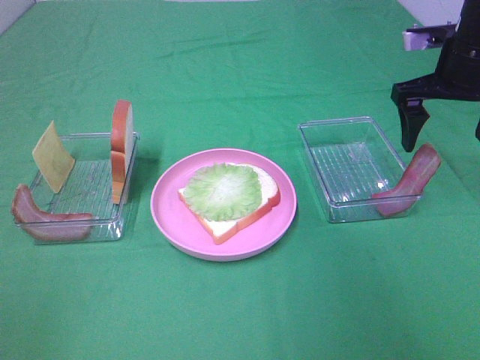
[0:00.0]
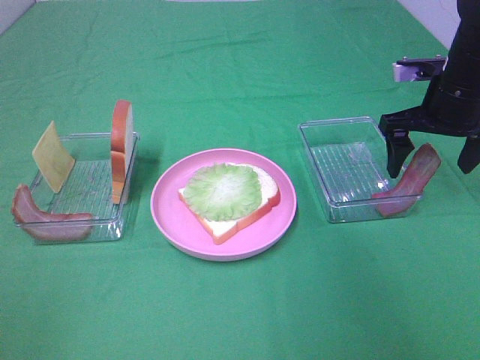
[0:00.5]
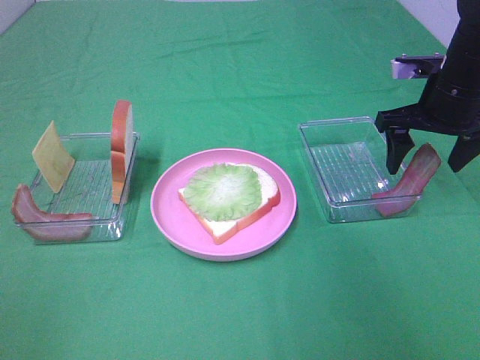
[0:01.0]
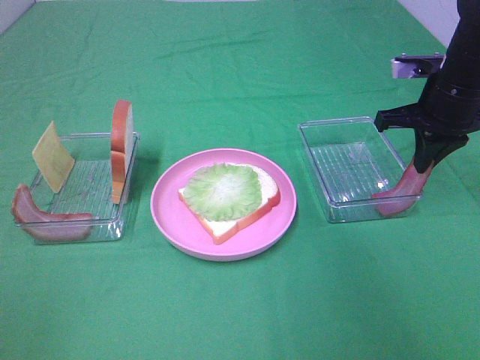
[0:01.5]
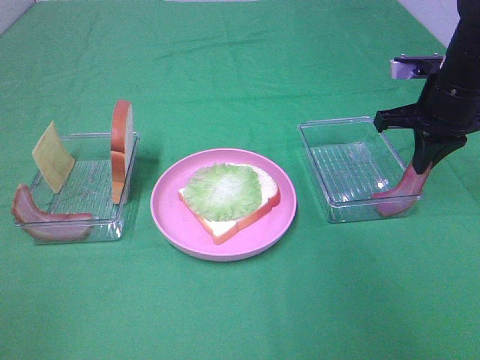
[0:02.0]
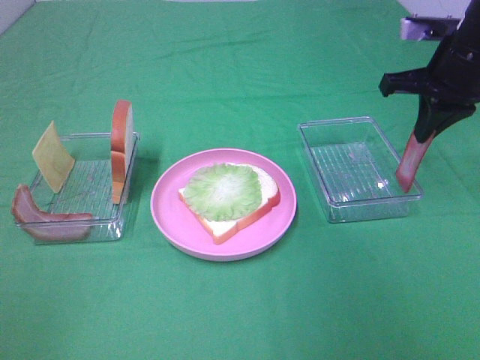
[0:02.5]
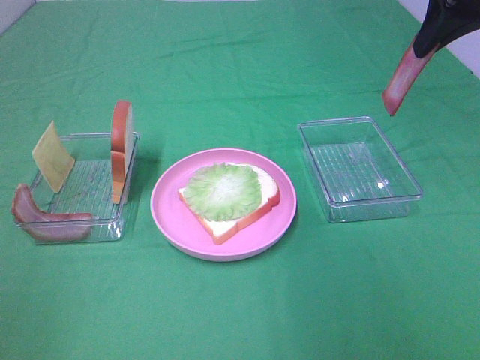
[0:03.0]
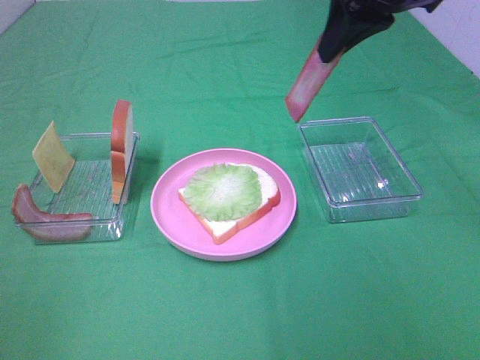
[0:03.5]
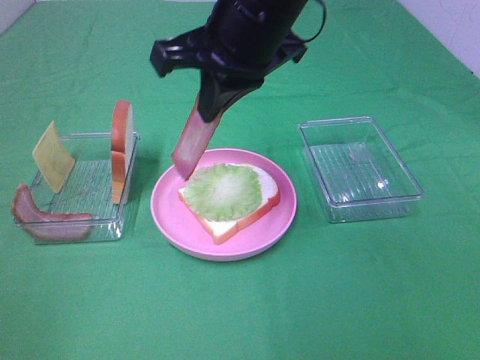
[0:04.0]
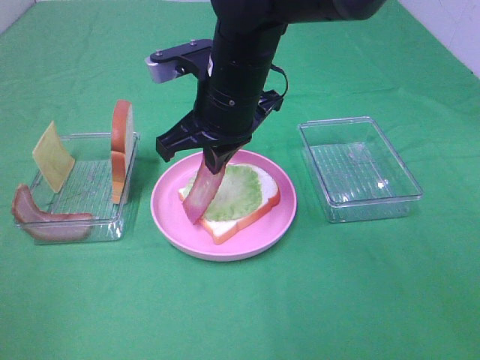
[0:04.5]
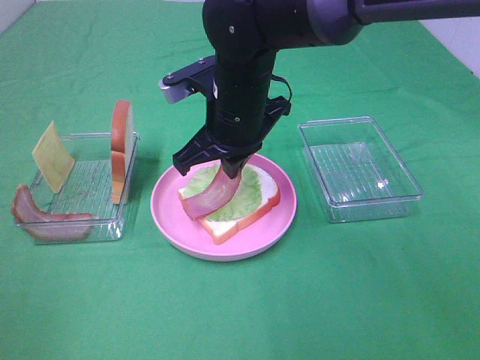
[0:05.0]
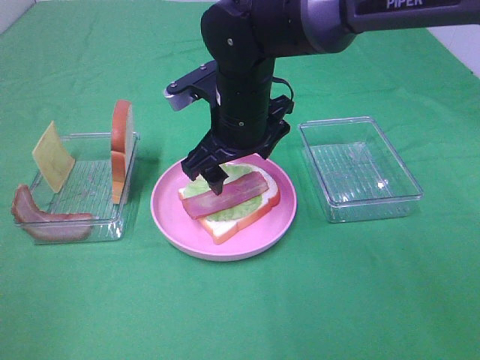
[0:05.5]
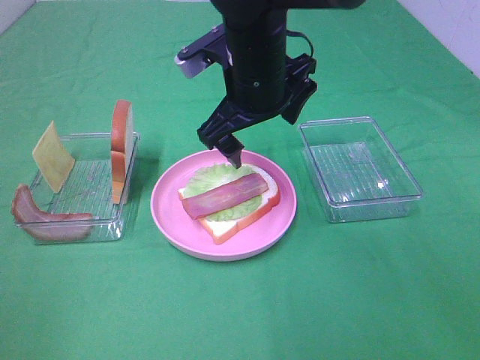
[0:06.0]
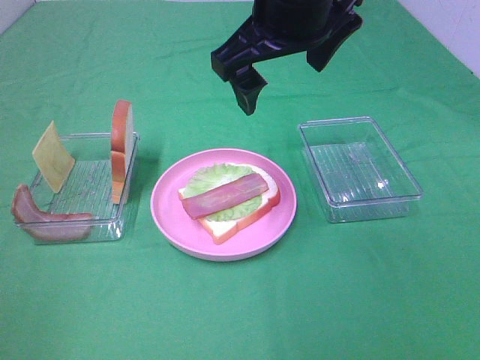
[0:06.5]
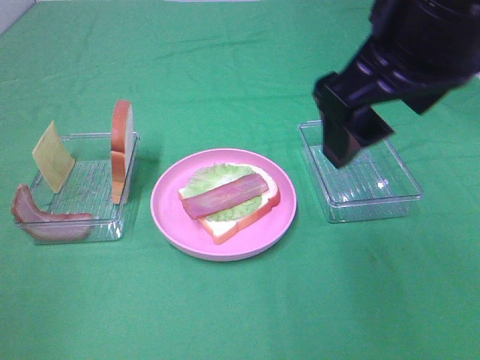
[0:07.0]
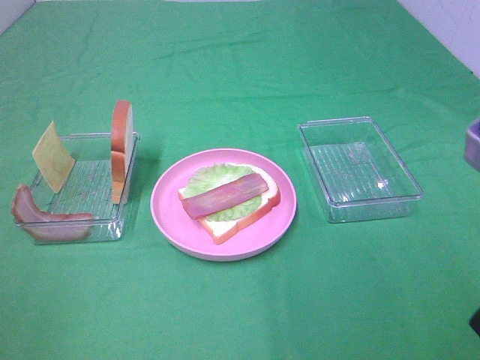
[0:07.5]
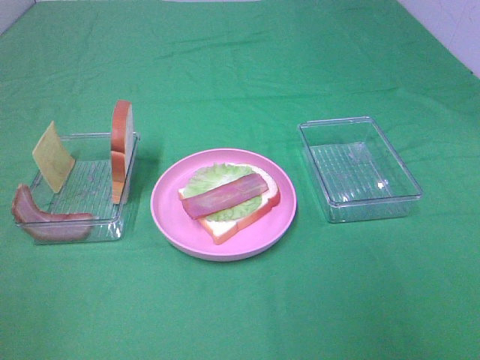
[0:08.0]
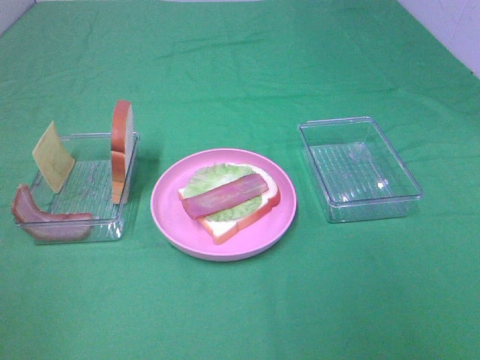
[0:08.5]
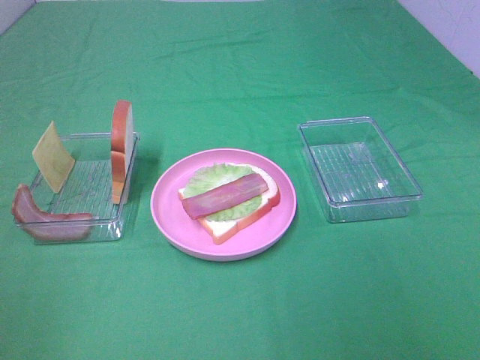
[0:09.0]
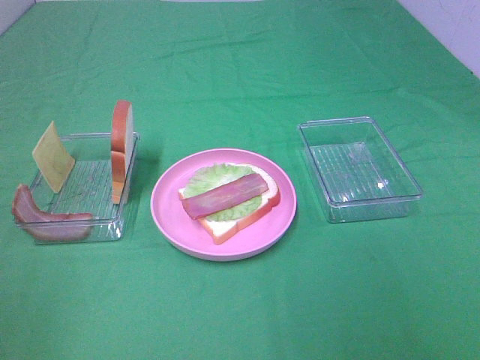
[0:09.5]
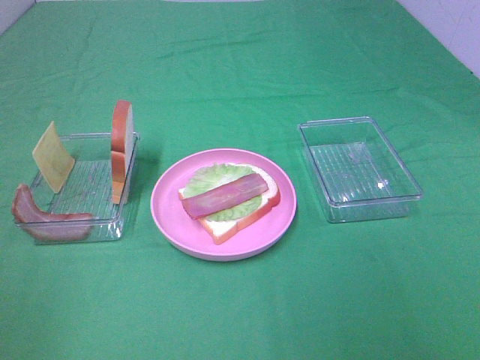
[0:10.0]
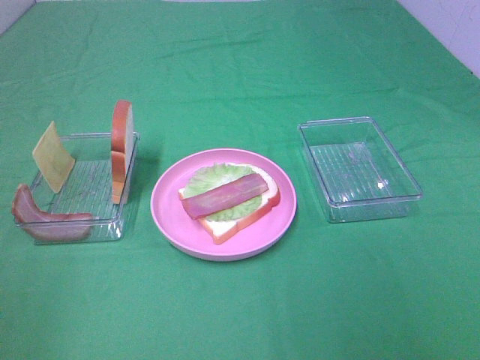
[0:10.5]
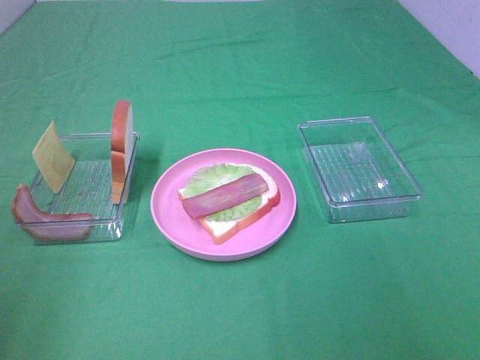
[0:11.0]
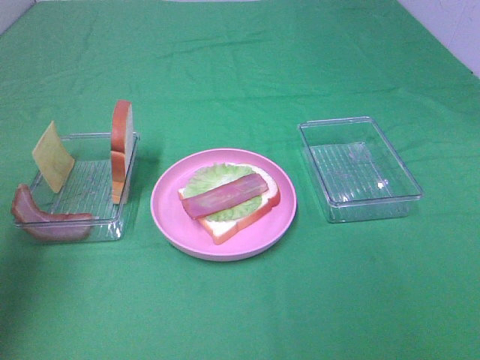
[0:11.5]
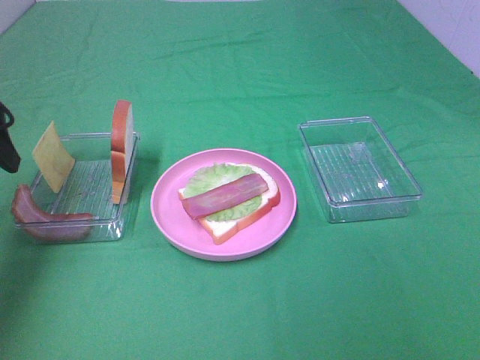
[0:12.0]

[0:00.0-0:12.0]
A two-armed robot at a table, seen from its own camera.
Task of the whole recording: Make sandwiches.
Step, 0:02.0 to 0:05.5: Right hand:place bacon on lettuce slice.
0:00.0 to 0:02.0: The right gripper closes up.
0:02.0 to 0:04.0: The right gripper is displaced to the left and upward by approximately 25 cm.
0:04.0 to 0:06.0: The right gripper moves downward, roughly 5 cm, and opens.
0:06.0 to 0:08.0: The right gripper shifts roughly 40 cm backward and to the right.
0:10.0 to 0:12.0: The left gripper moves forward, roughly 30 cm.

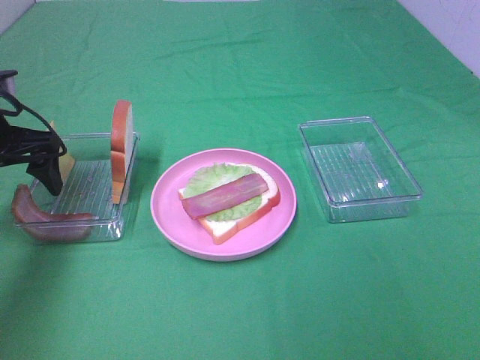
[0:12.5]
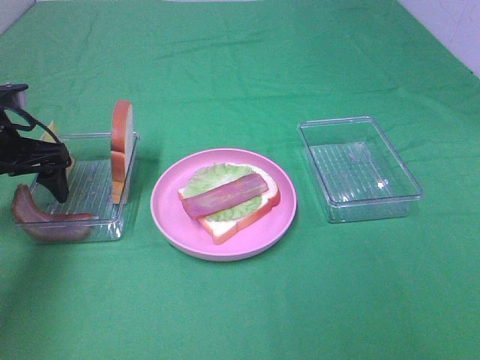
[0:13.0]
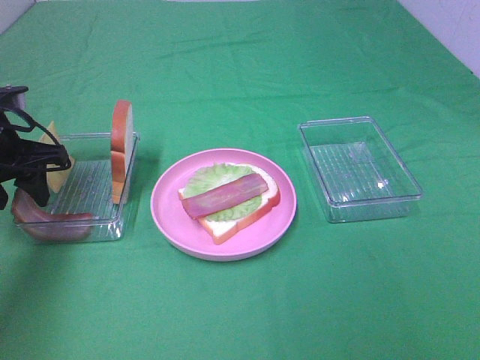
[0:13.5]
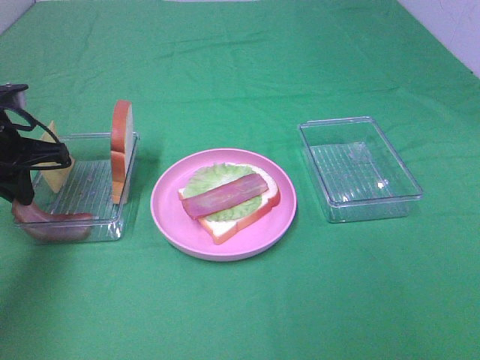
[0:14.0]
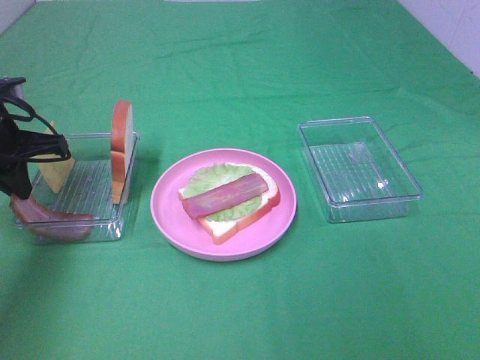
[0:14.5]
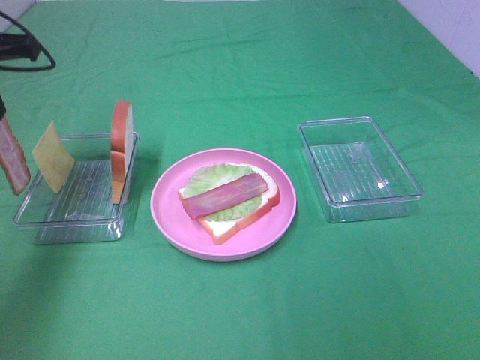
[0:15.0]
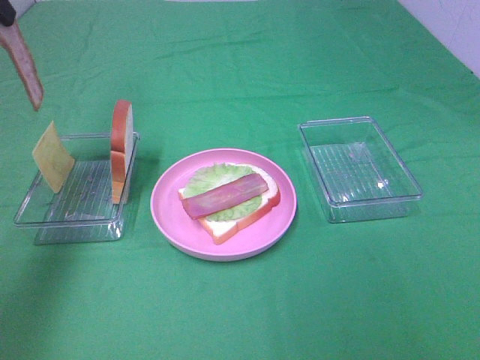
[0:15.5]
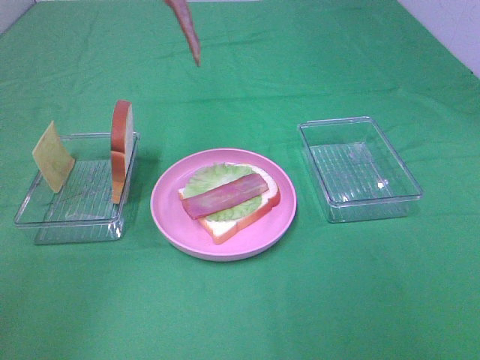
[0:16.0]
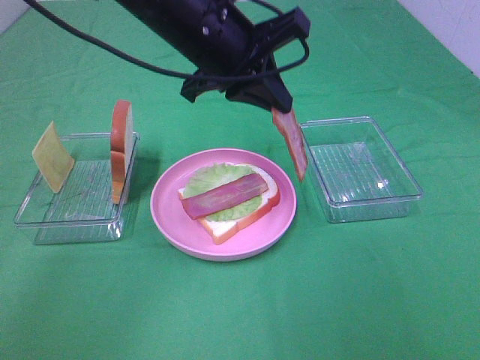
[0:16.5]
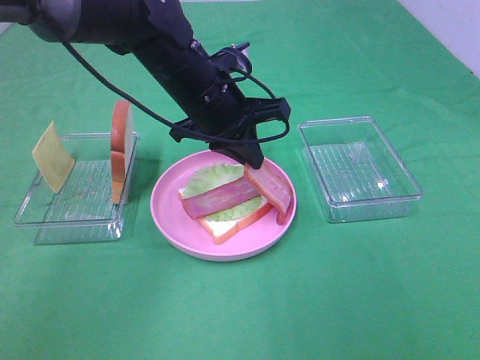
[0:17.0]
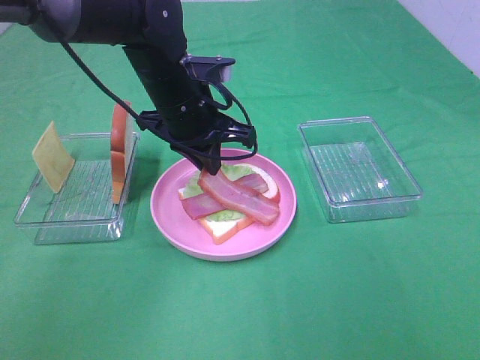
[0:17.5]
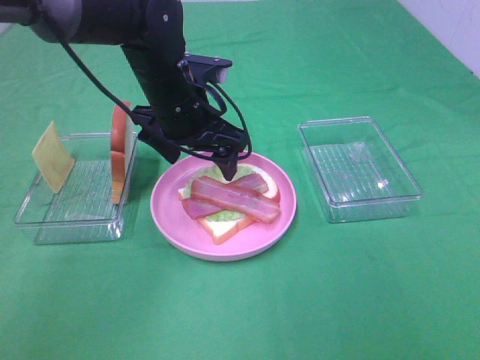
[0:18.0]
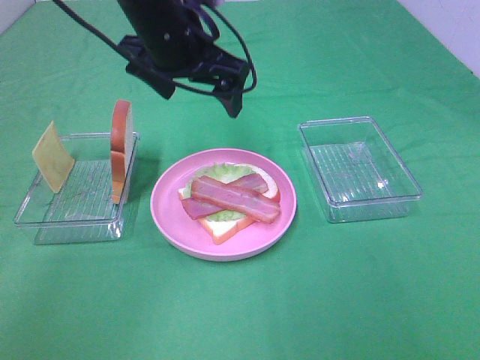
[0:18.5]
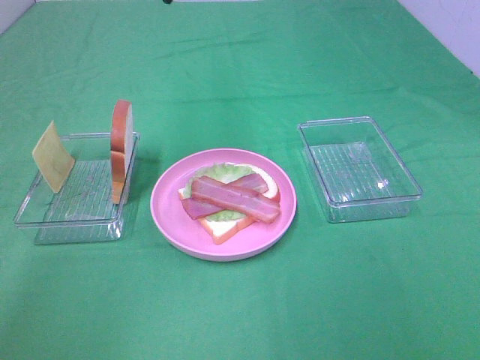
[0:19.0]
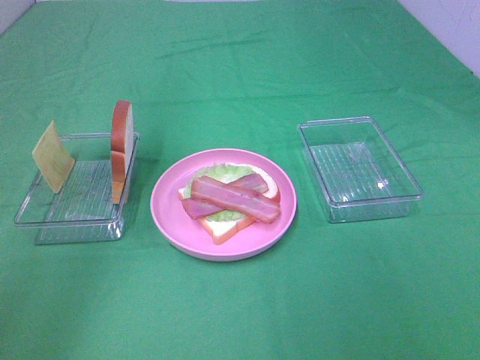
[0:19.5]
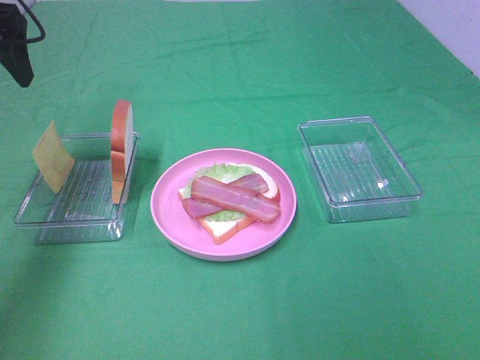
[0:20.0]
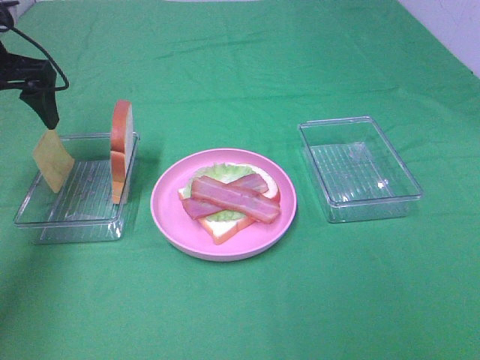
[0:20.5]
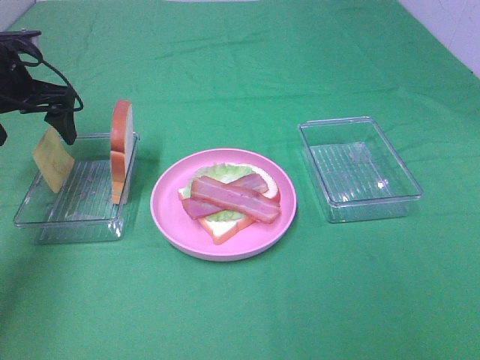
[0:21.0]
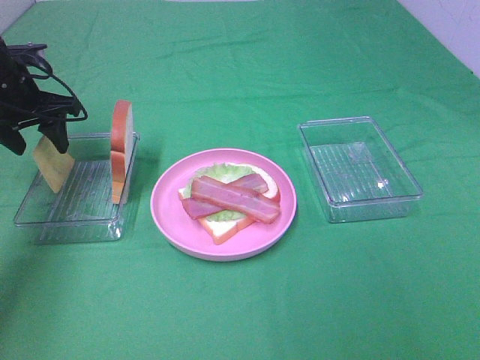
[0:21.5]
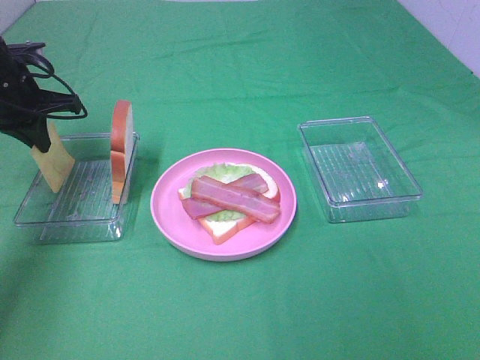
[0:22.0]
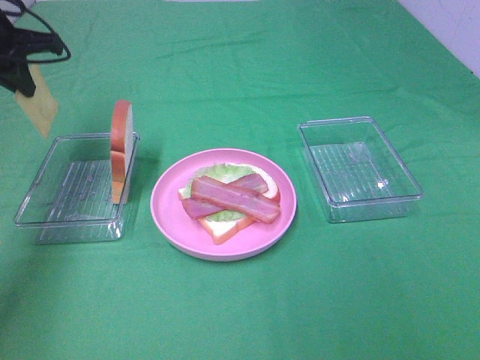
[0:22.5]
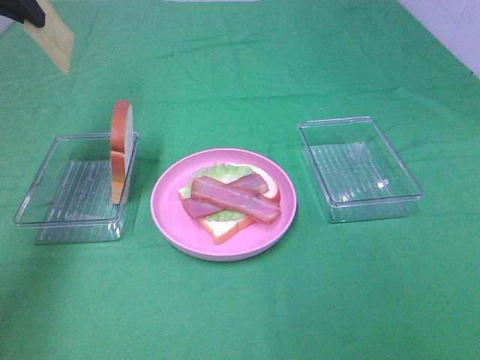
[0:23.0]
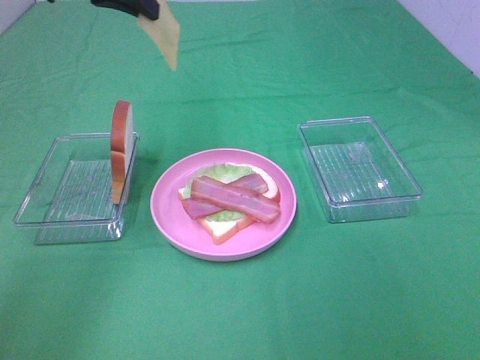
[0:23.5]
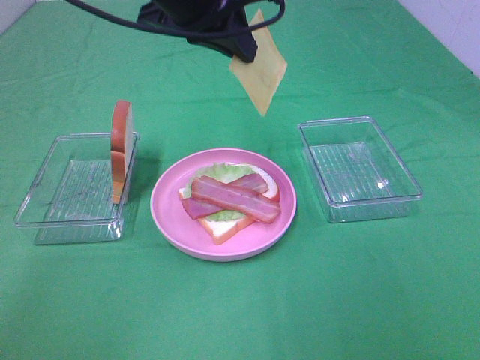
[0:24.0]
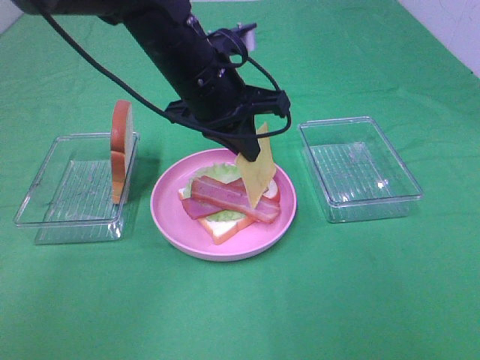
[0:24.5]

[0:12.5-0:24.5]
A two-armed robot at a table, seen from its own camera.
Task of the whole recording: Make sandwiches.
Step, 0:14.5 to 0:17.5: Left hand:place bacon on bacon.
Step, 0:18.0 to 0:22.0: Left hand:grab the cheese slice.
0:12.5 to 0:14.5: The left gripper closes its fingers.
0:14.5 to 0:16.5: The left gripper travels to the right by about 25 cm.
0:16.5 to 0:18.5: The left gripper goes downward and returns, some 10 cm each way, and opens.
0:18.5 to 0:20.5: The left gripper is displaced to the left by some 20 cm.
0:20.5 to 0:22.5: The left gripper travels downward and back again, about 5 cm each way, and closes.
0:22.5 to 0:24.5: The left gripper is displaced to the right by about 25 cm.

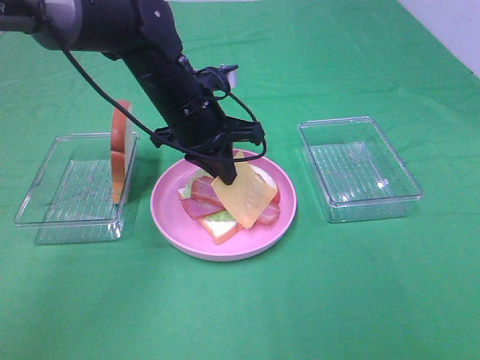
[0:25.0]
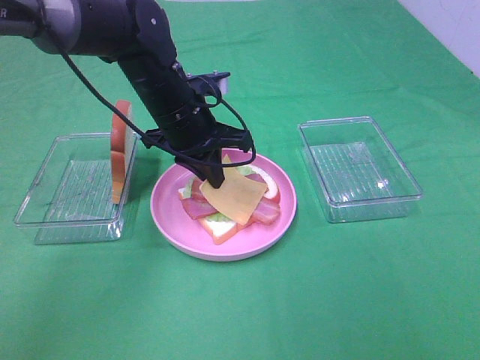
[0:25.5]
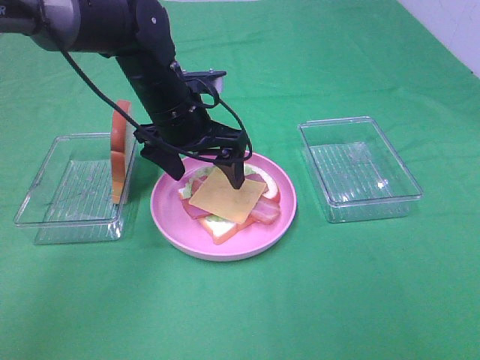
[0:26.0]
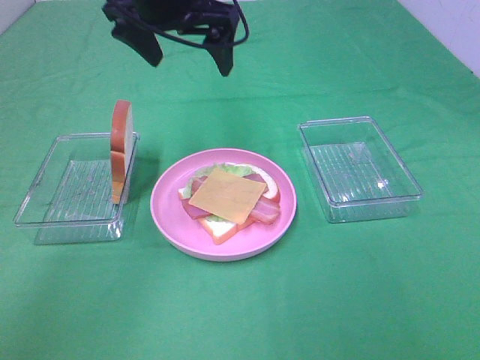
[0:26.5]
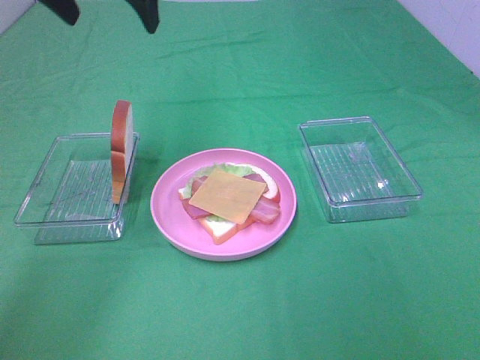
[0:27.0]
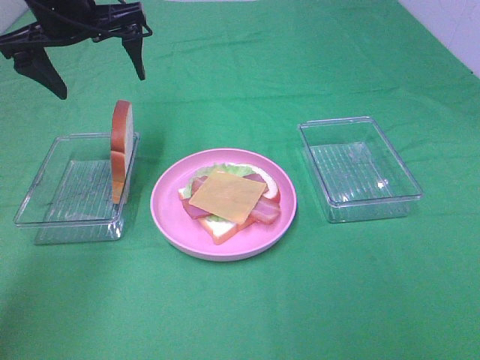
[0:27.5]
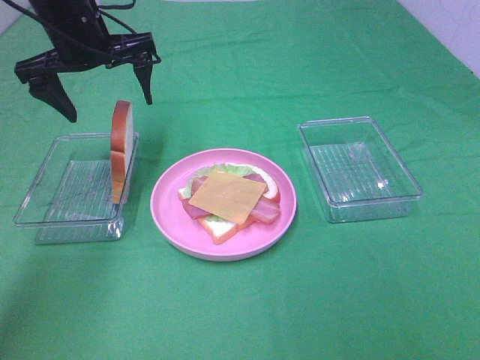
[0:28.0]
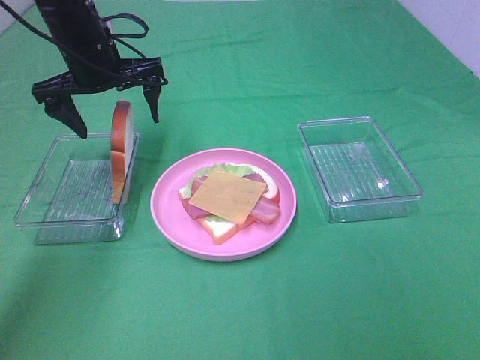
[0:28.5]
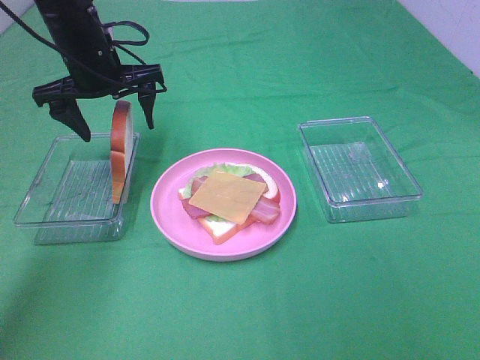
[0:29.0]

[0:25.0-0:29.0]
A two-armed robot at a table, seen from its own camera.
Task of the whole recording: Make sandwiches.
0:25.0 to 0:27.0: The left gripper goes roughly 20 cm upward and to the left, and opens its fingers.
0:27.0 to 0:29.0: The left gripper heads downward, covering about 15 cm.
